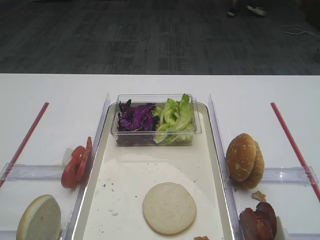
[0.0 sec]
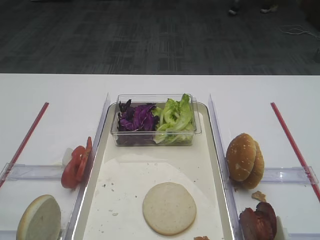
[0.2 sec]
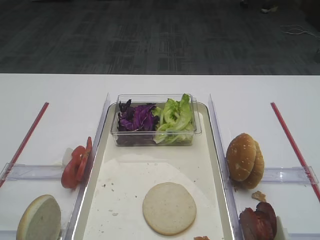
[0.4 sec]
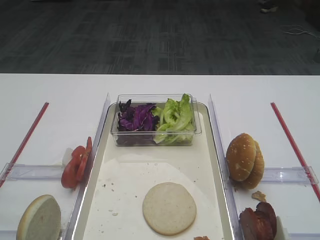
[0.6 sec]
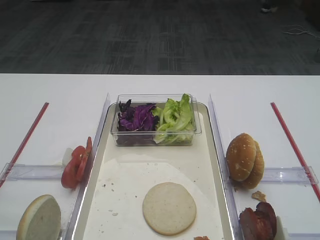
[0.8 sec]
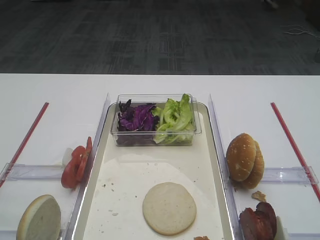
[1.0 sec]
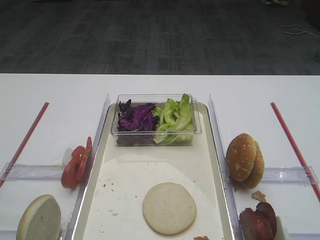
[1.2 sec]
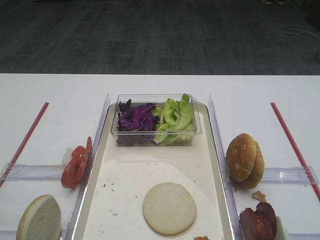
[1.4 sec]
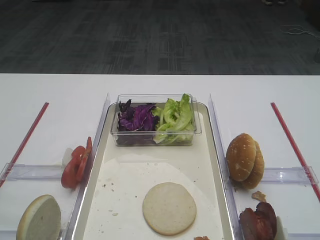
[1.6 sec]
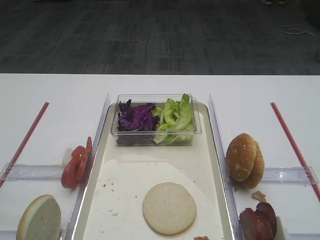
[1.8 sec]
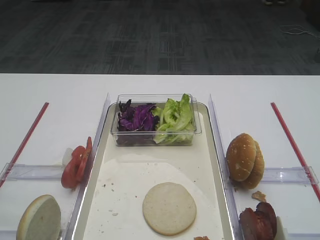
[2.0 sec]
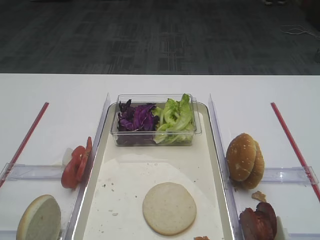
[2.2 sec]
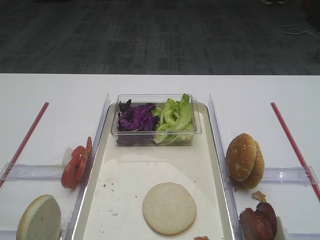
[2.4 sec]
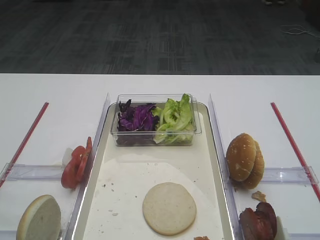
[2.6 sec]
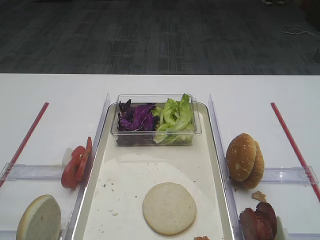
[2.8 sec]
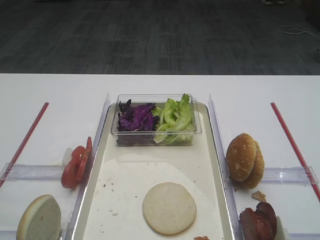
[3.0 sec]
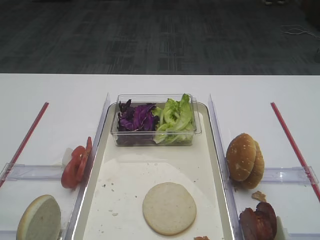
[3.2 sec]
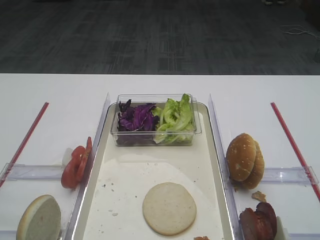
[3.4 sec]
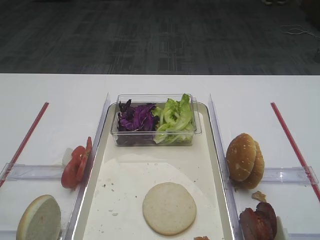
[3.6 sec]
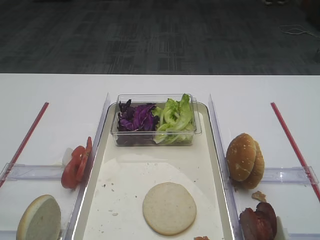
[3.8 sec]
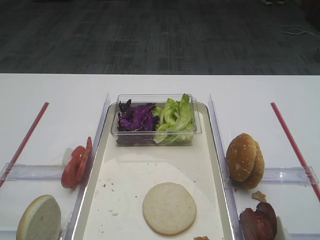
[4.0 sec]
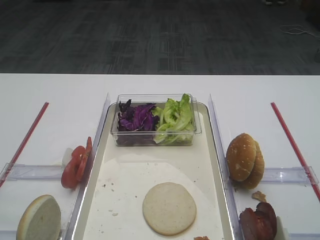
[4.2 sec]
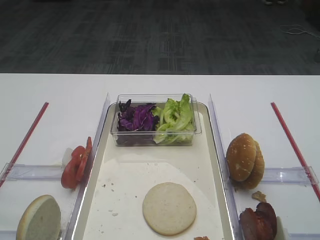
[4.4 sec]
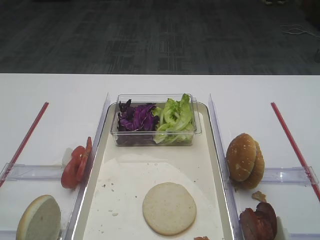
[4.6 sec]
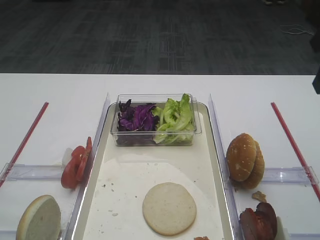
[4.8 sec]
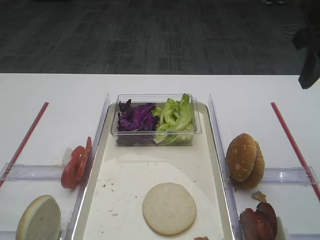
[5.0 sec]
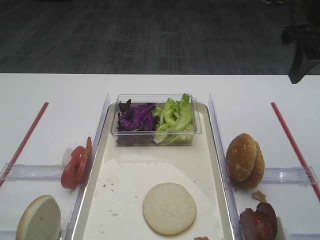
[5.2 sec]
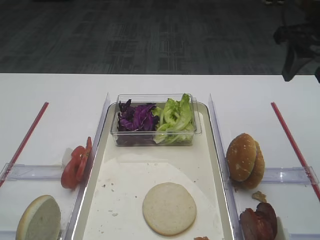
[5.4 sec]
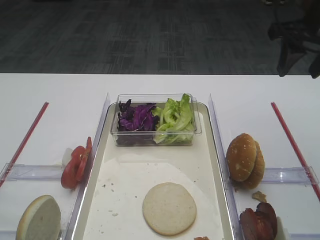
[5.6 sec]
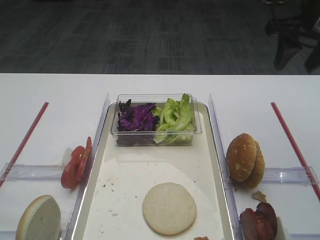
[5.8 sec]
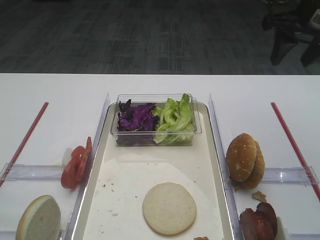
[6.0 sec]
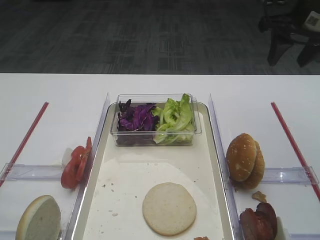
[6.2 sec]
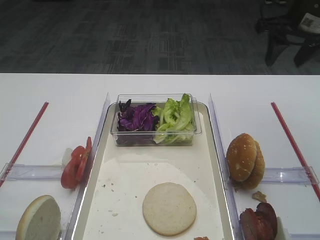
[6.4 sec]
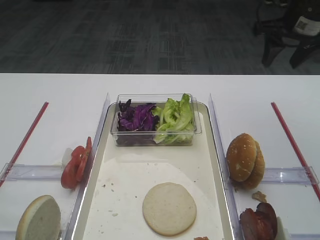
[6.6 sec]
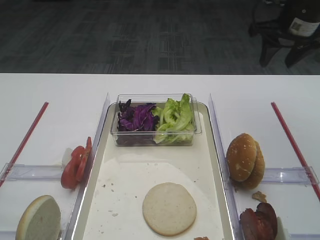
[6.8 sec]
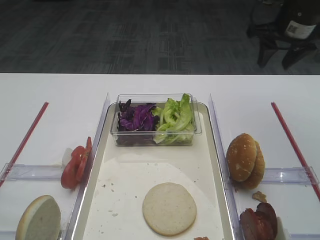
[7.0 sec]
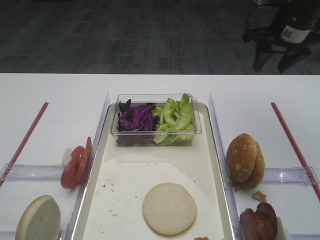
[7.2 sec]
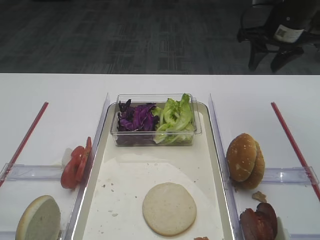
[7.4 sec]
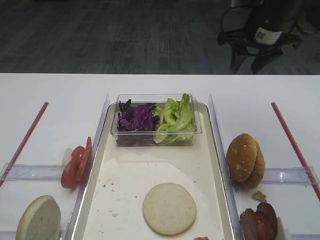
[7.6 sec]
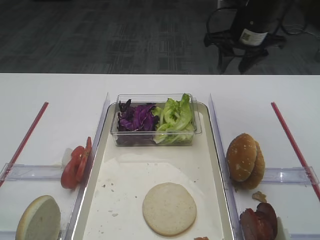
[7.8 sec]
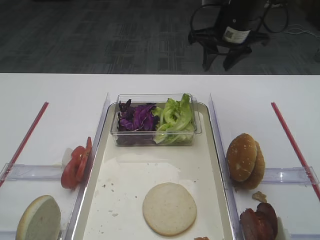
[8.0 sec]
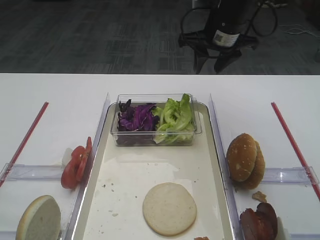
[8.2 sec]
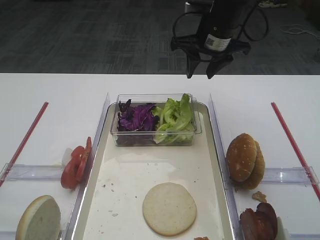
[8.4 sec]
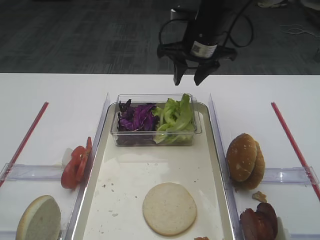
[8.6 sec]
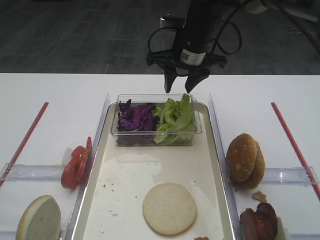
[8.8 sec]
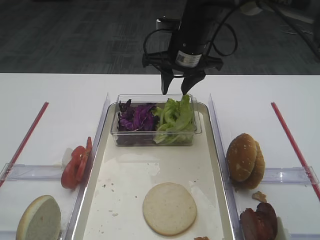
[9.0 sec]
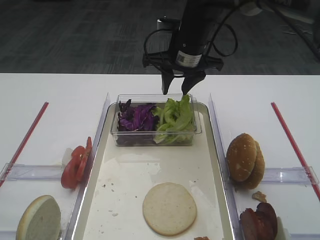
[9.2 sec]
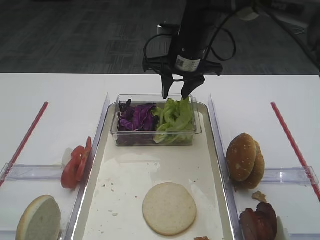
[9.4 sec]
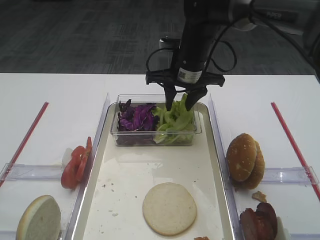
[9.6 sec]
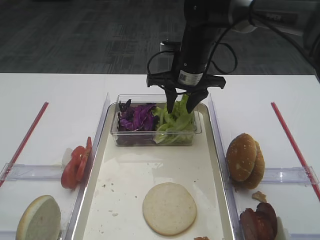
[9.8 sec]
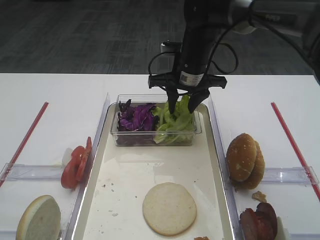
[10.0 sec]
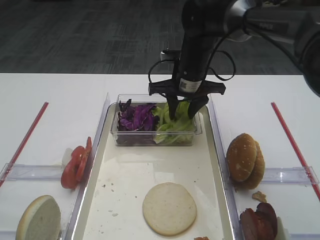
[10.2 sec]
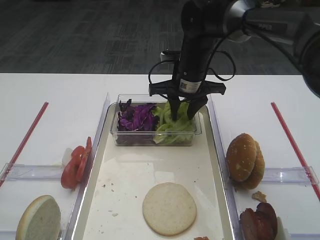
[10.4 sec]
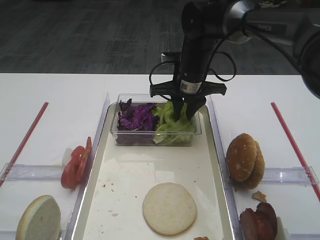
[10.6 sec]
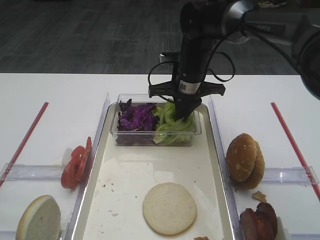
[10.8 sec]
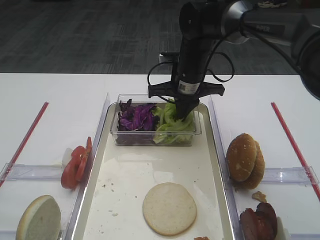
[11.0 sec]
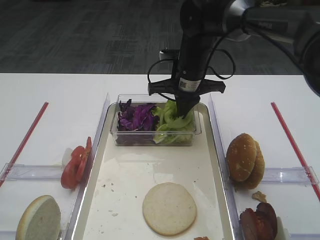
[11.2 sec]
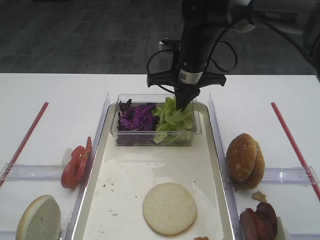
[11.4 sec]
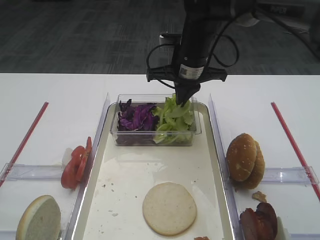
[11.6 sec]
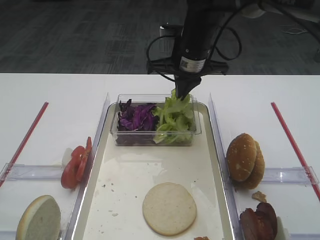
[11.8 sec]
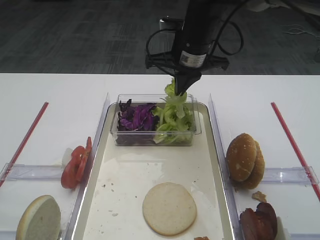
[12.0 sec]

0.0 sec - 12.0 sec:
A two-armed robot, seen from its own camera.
4.4 sec - 6.0 sec: The right gripper heads forward, covering approximately 20 cm.
6.0 sec - 7.6 sec: The right gripper travels forward by roughly 5 cm.
7.6 sec - 9.0 sec: The right gripper goes some 15 cm to the left.
9.0 sec - 10.4 sec: The right gripper travels downward by about 5 cm.
10.4 sec - 12.0 sec: The right gripper shifts some 5 cm upward, and closes.

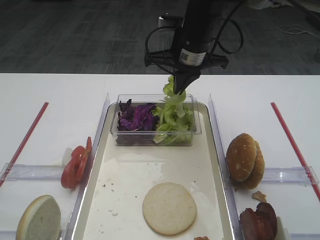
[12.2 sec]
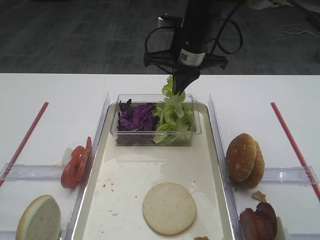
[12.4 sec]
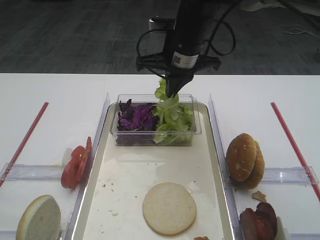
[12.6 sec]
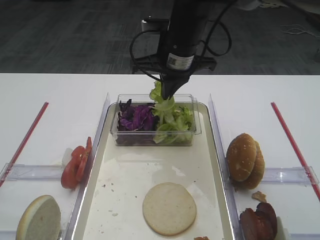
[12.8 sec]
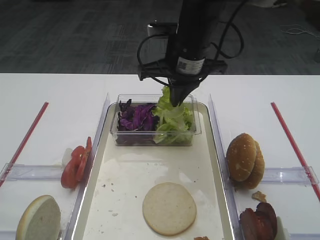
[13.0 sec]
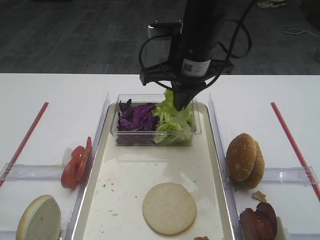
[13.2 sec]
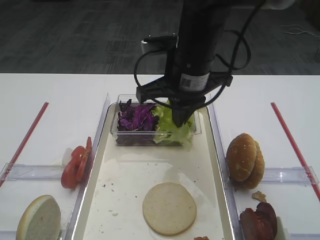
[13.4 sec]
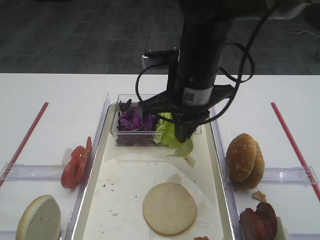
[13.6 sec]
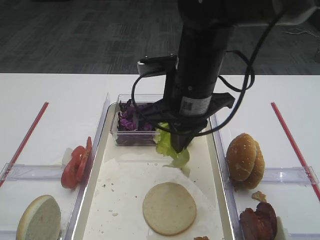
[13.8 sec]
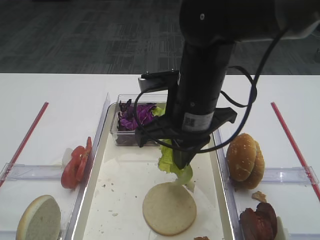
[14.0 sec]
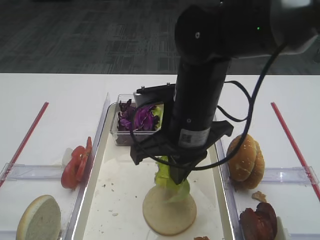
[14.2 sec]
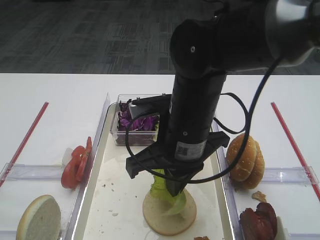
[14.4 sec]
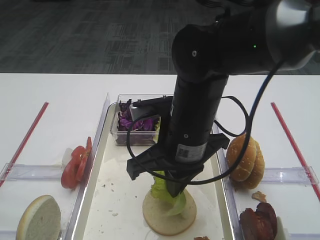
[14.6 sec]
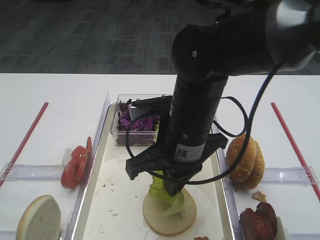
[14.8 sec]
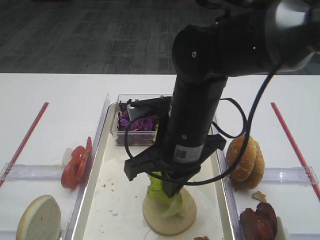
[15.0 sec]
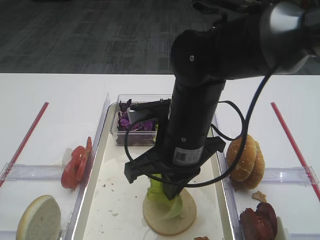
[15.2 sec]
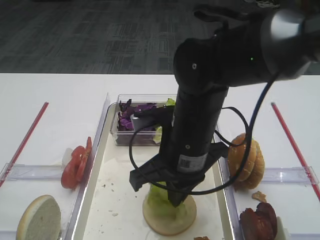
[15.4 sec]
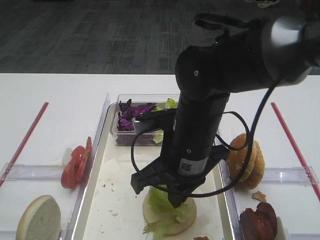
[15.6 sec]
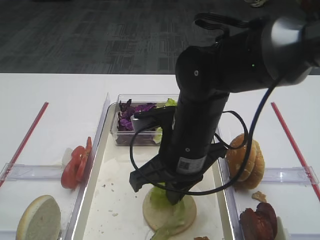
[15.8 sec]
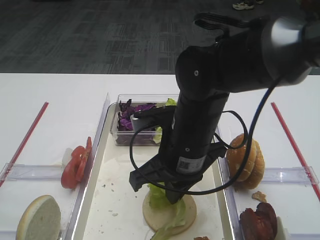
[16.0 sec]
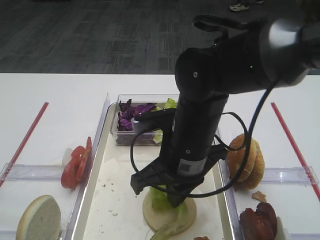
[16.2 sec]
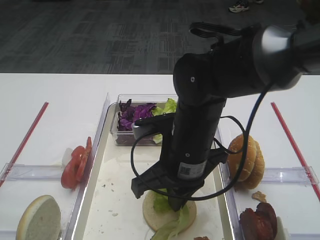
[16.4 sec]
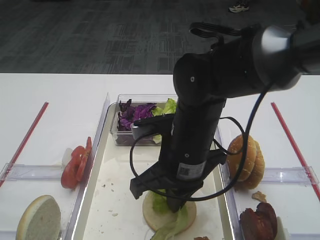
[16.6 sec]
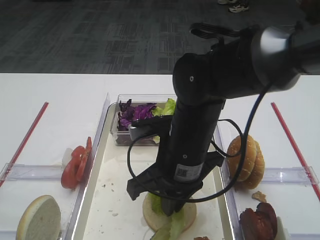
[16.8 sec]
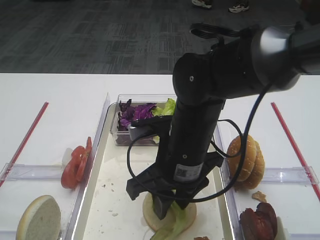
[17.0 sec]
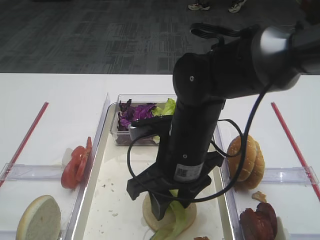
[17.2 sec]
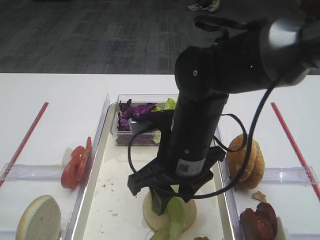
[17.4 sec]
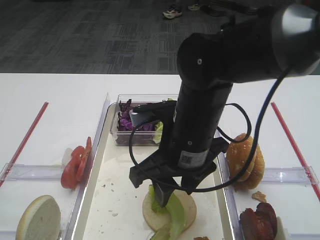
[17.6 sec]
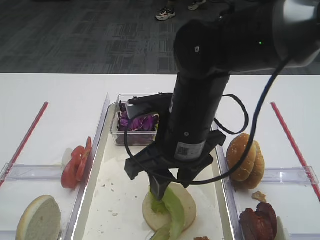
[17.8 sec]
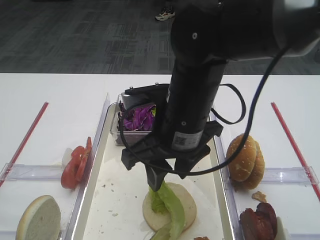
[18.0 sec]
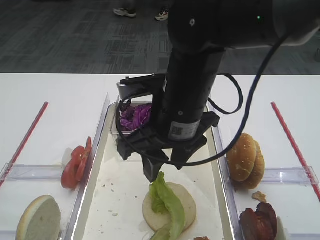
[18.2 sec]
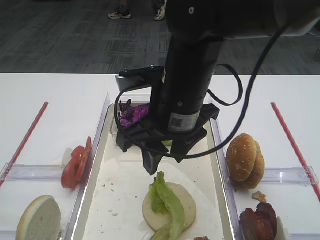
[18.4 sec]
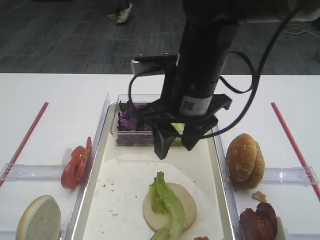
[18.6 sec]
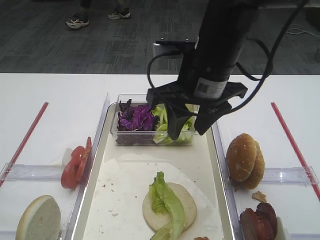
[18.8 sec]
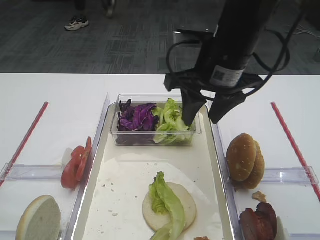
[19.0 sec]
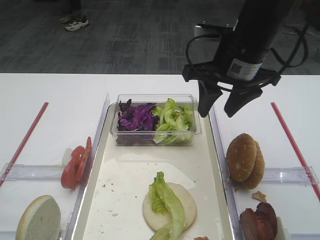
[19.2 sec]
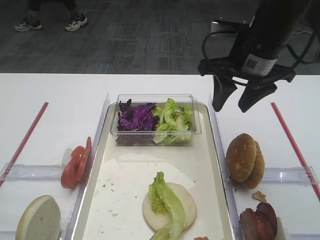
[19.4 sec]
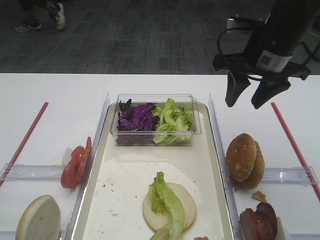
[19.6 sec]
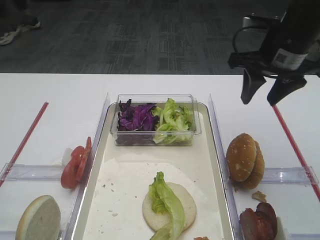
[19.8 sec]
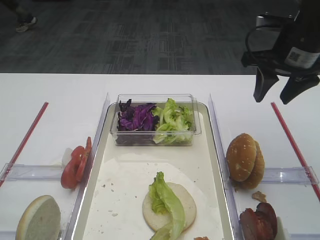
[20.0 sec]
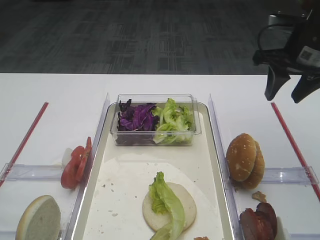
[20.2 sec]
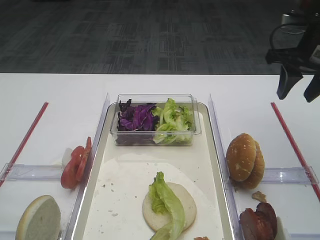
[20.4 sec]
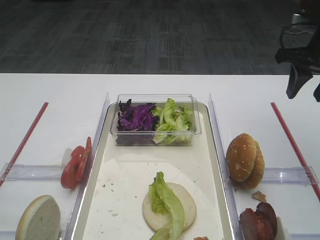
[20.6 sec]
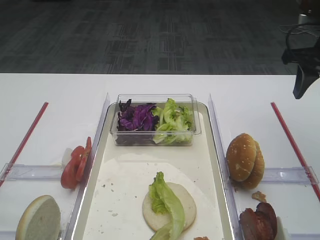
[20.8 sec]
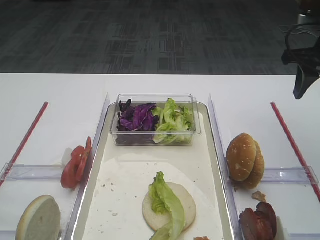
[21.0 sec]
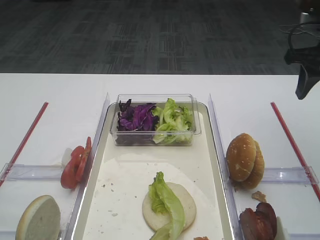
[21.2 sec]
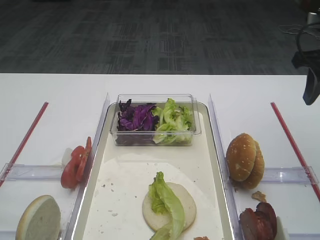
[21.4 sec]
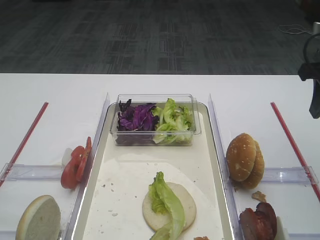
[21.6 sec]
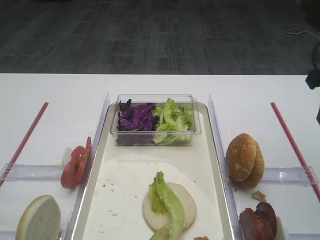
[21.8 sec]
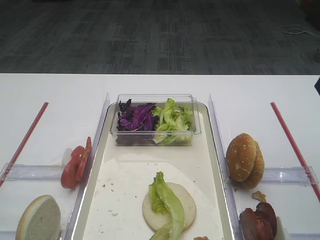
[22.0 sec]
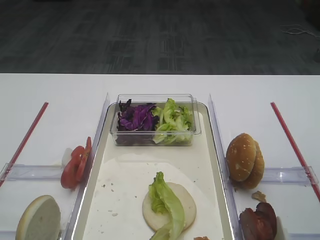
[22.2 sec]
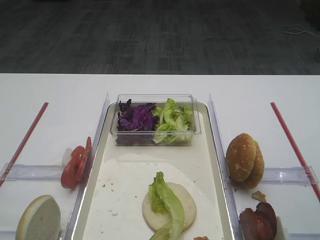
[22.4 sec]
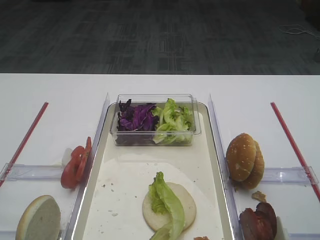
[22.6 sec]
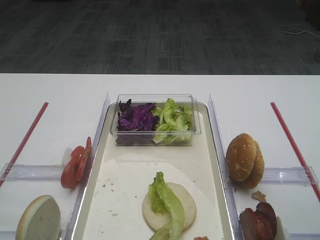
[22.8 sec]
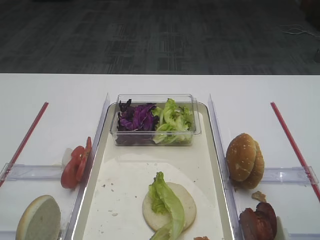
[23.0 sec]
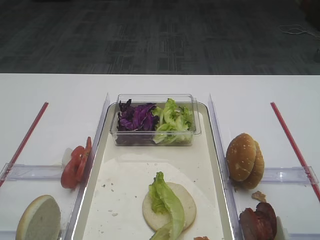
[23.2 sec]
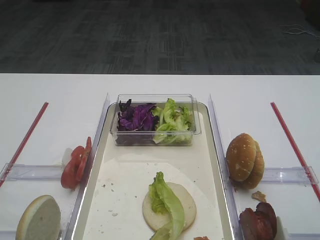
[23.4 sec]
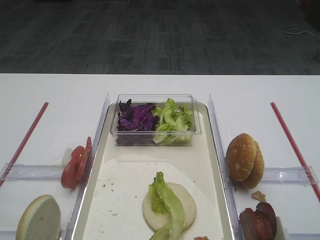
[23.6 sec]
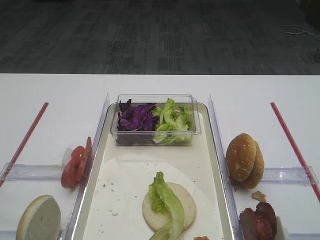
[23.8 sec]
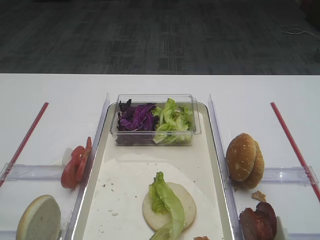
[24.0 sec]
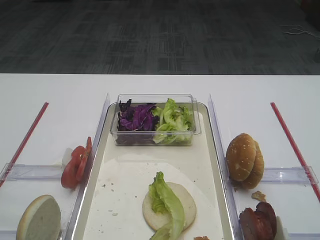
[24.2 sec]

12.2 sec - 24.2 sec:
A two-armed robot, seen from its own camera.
Step, 12.8 sec - 18.2 sec: Place the lettuce leaf on the bread slice with the right gripper.
12.2 sec - 13.8 sec: The right gripper is displaced backward by about 15 cm.
13.8 sec - 15.2 sec: The right gripper moves about 5 cm.
15.2 sec - 16.6 sec: The grippers move only a little.
16.6 sec - 18.2 sec: The right gripper shifts roughly 5 cm upward, and opens.
18.2 sec - 19.8 sec: The right gripper shifts about 20 cm to the right and forward.
19.8 sec - 21.2 sec: The right gripper goes approximately 10 cm to the right.
21.2 sec - 22.6 sec: The right gripper moves backward, approximately 20 cm.
